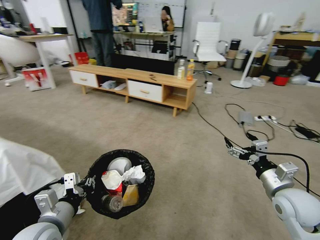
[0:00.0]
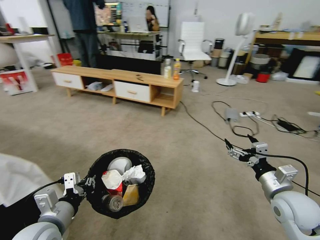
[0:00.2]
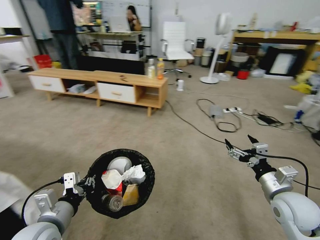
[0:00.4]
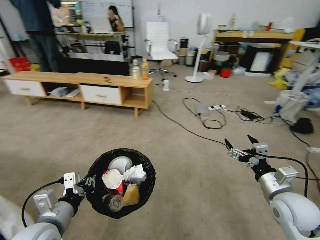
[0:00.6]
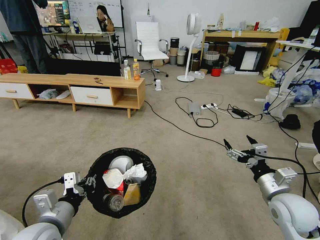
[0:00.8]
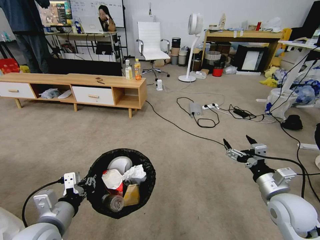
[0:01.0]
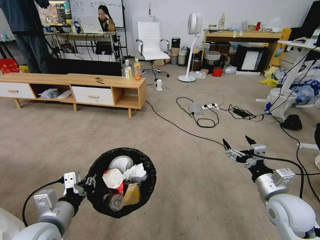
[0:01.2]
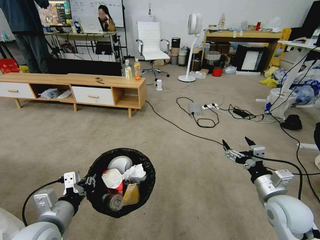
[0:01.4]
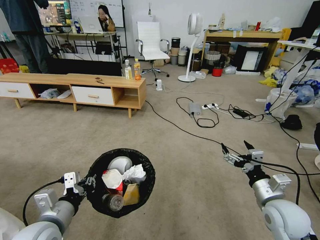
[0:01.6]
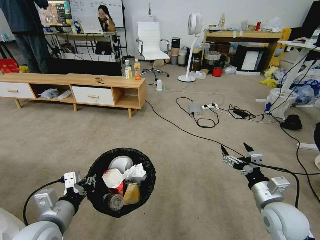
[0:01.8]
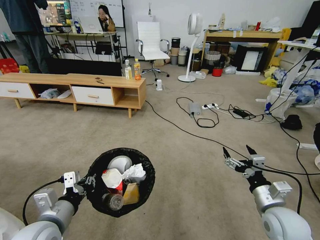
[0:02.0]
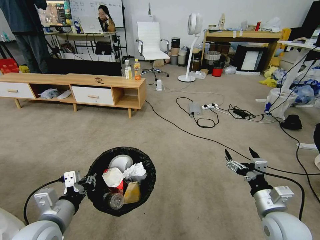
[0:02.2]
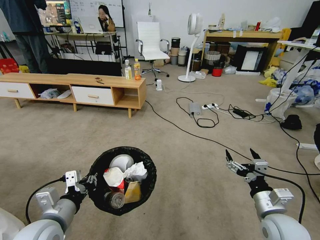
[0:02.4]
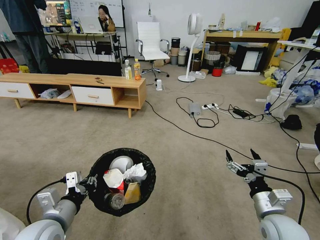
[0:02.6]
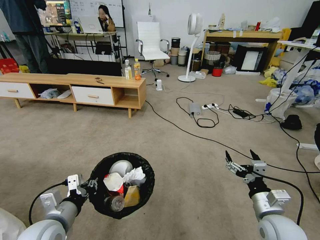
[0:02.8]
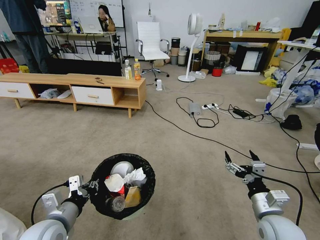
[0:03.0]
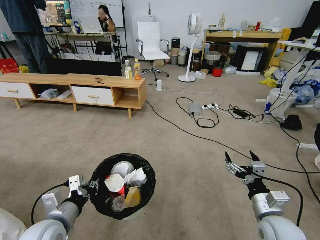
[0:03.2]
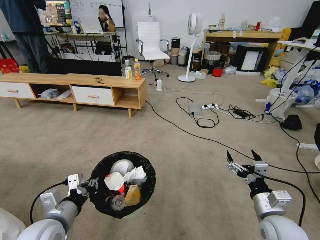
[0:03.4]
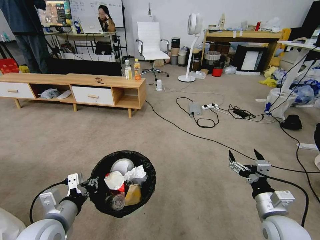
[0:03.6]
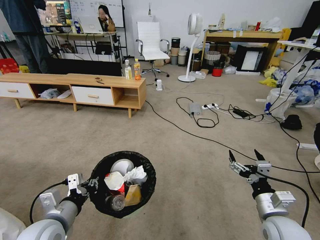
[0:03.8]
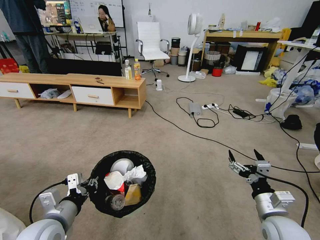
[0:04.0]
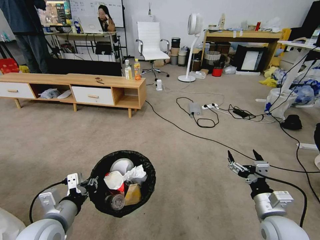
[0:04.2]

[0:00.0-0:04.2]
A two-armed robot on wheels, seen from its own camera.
Task of the whole recording: Pick up the trash bin and place the garbage on the floor into it.
0:01.4 to 0:02.8: The right gripper ends up roughly 5 cm from where it was.
0:02.8 to 0:04.2: The two grippers keep their place.
